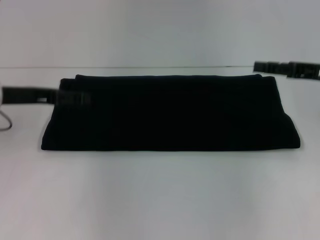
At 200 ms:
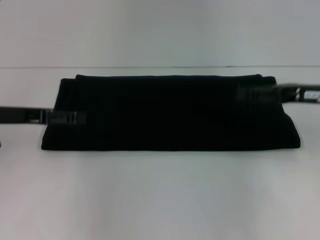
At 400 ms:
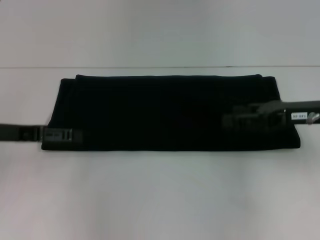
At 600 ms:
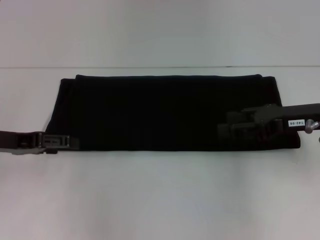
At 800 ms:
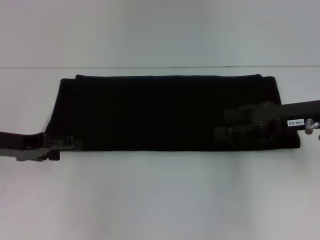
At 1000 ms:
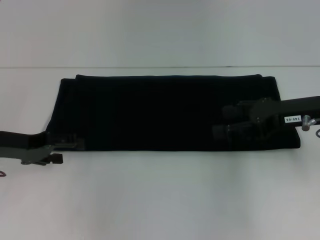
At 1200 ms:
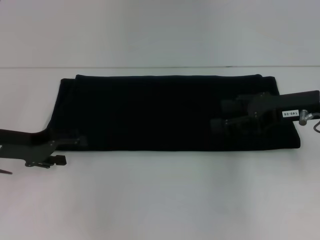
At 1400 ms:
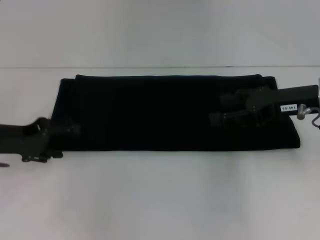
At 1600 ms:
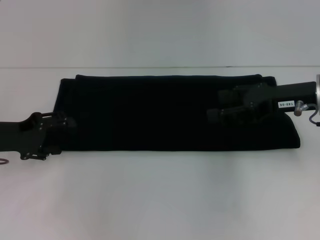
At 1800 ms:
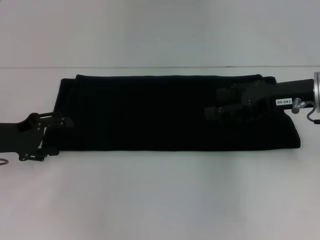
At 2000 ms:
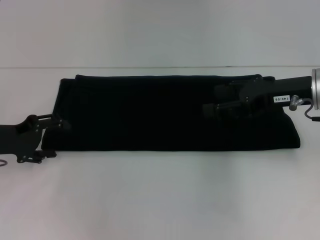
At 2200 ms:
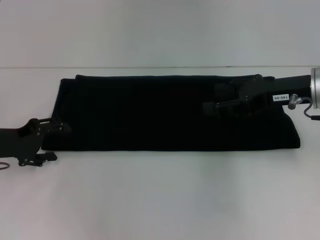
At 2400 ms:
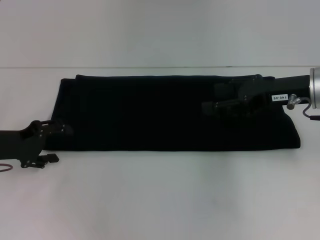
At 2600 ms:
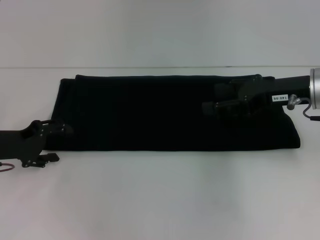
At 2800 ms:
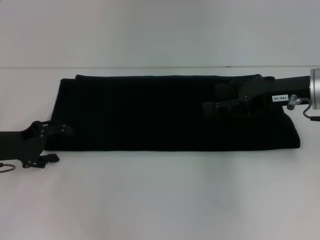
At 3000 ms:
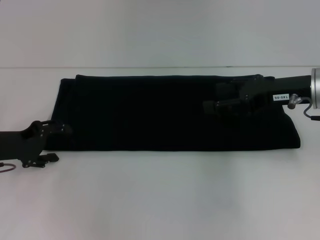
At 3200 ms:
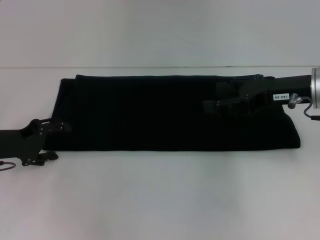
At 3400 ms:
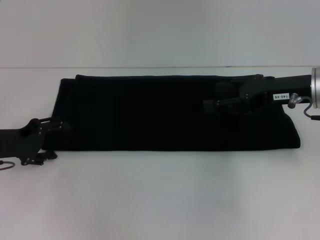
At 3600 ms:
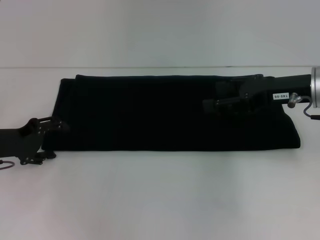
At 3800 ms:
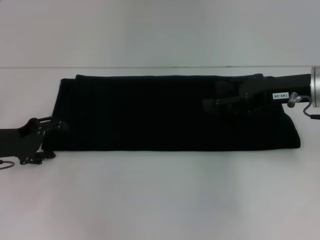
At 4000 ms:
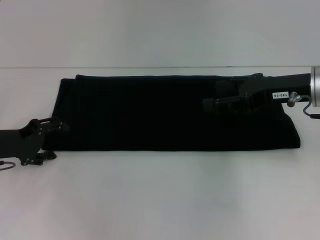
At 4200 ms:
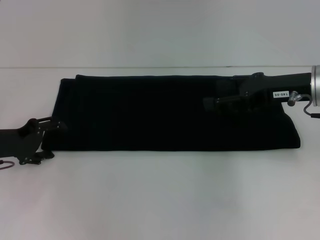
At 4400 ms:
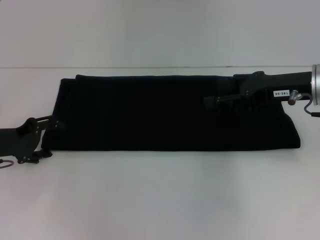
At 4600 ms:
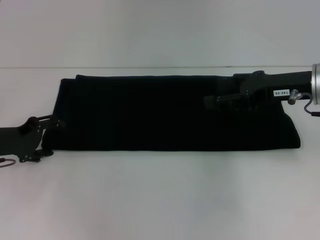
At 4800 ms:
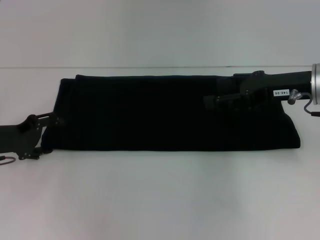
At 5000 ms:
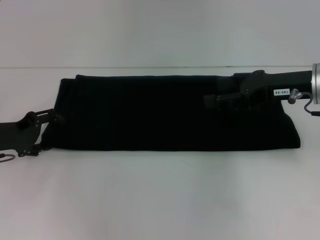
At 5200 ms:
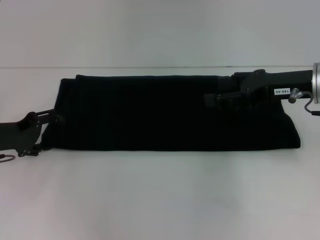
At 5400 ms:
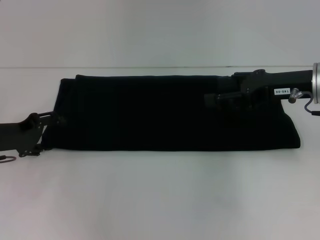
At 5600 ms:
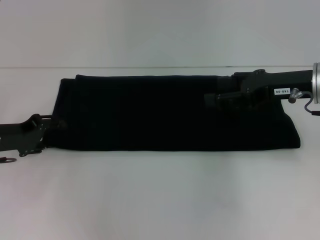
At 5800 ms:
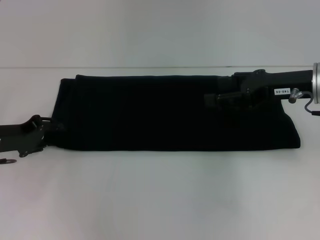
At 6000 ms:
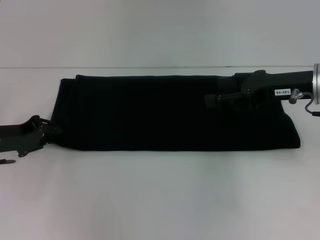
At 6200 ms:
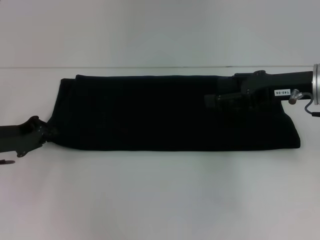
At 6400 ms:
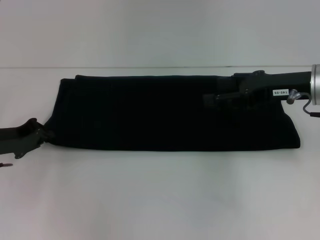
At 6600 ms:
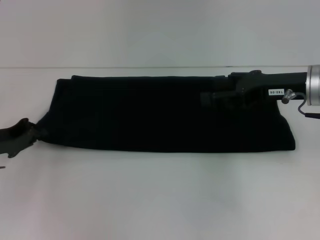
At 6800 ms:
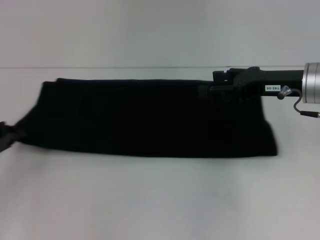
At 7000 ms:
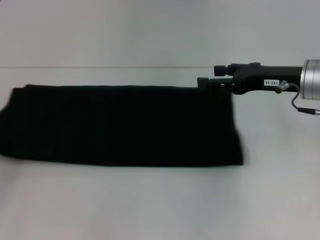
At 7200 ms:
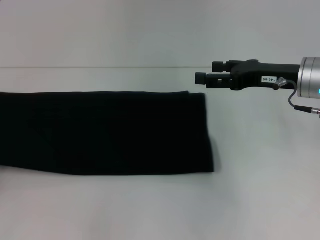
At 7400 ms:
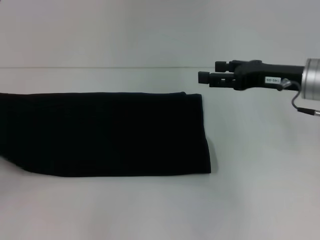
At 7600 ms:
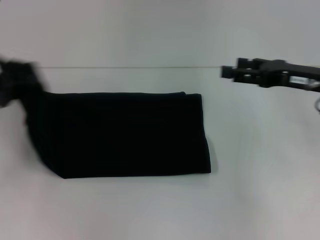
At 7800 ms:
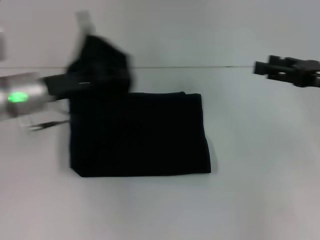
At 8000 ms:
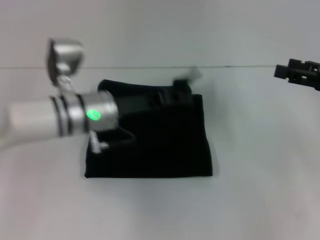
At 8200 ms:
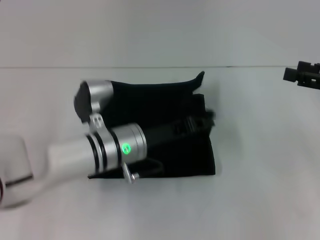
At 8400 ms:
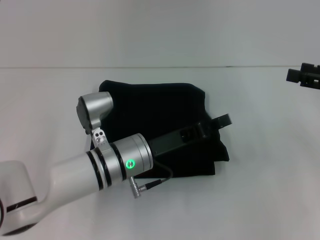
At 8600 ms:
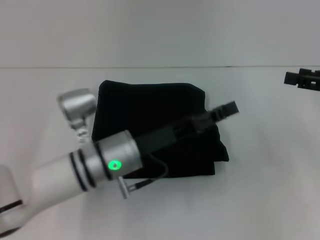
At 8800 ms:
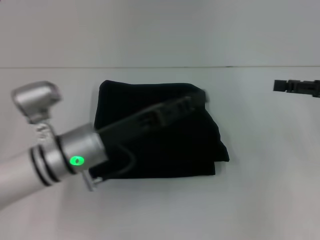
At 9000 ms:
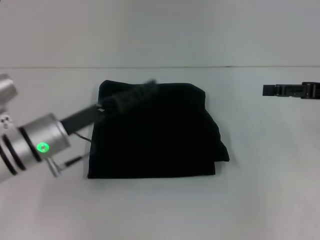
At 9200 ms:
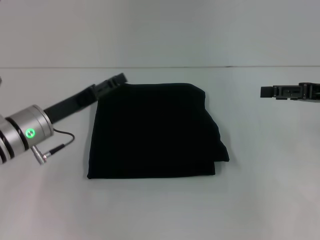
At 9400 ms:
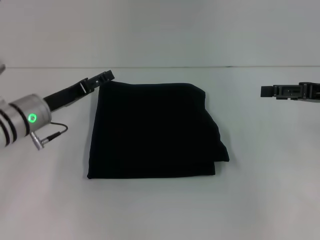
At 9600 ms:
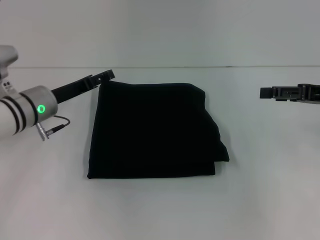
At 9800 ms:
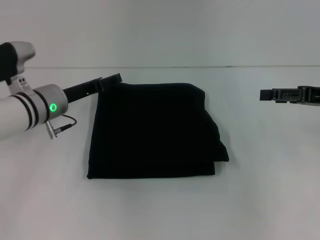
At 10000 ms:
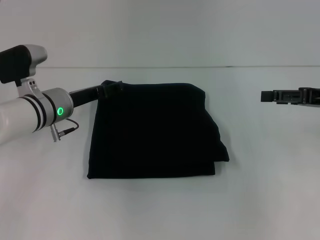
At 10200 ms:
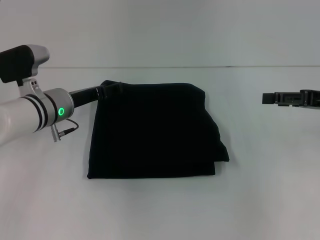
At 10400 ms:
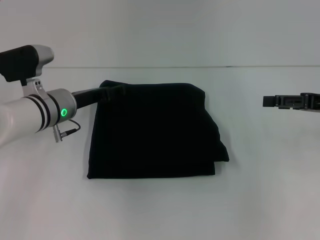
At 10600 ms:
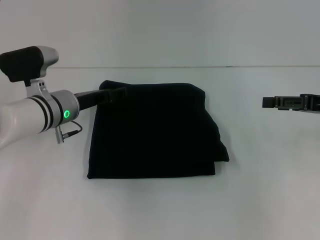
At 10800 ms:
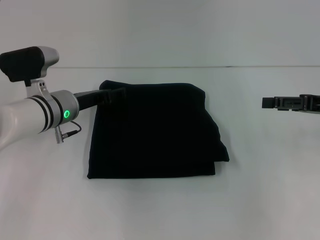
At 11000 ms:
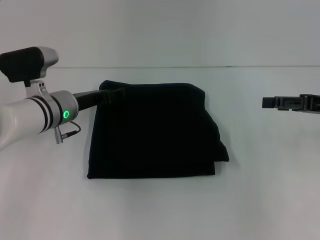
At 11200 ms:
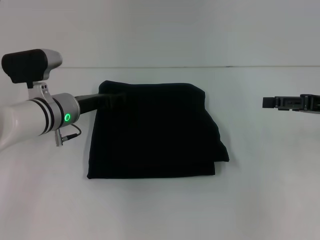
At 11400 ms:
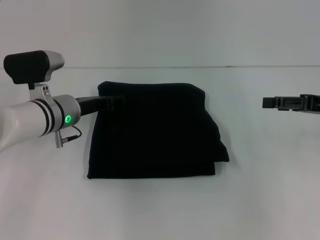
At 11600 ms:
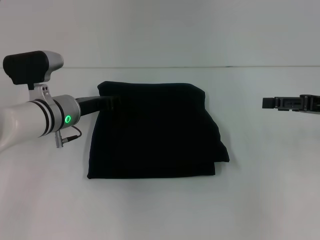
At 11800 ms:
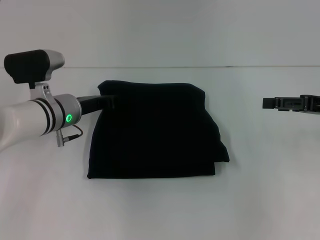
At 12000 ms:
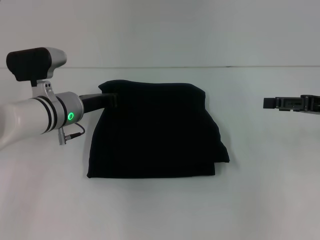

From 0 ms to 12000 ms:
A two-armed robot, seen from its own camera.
Step, from 0 ms to 8600 ms: Fold the clothes with your left hand.
From 0 ms to 1600 ms: The left gripper changes place by some 5 cm; the right gripper shifts approximately 5 cm to the left.
From 1600 ms to 3000 ms: The grippers make only small movements.
From 3000 ms to 4400 ms: Neither gripper changes place.
From 4400 ms to 6000 ms: The left gripper closes its fingers.
From 6000 ms to 7600 ms: The left gripper heads upward, covering approximately 5 cm, moves some 10 cm to the left and comes back, and closes up.
From 7600 ms to 9000 ms: The right gripper heads to the right, covering about 5 cm, while the left gripper travels to the right by approximately 15 cm, and opens.
From 9000 ms to 10400 ms: The left gripper is displaced forward by roughly 10 cm, and opens its fingers.
From 10400 ms to 12000 ms: The left gripper closes its fingers.

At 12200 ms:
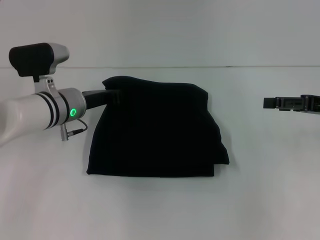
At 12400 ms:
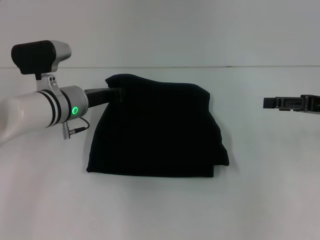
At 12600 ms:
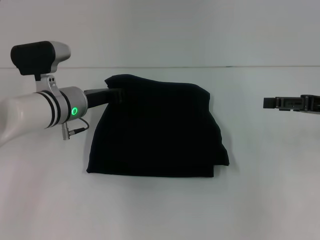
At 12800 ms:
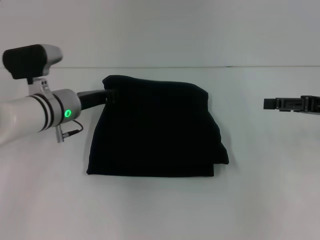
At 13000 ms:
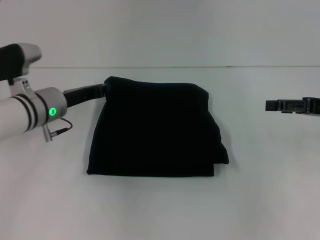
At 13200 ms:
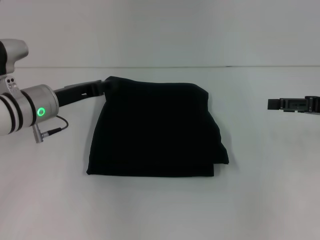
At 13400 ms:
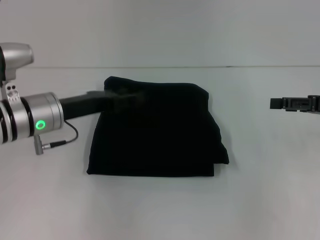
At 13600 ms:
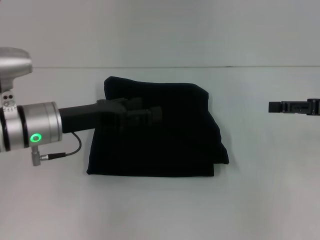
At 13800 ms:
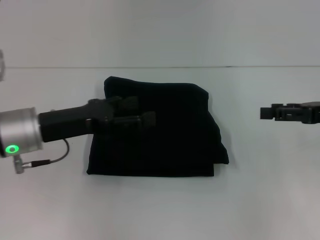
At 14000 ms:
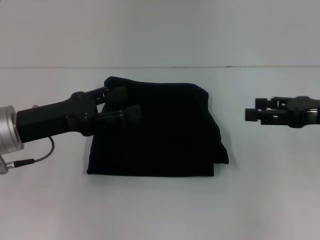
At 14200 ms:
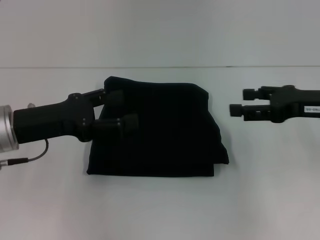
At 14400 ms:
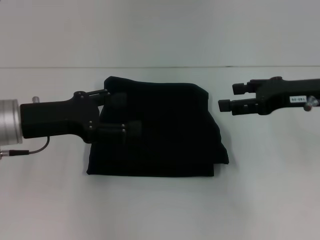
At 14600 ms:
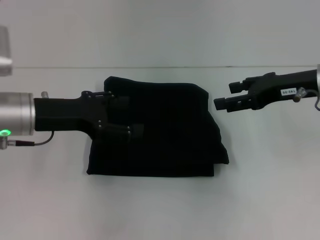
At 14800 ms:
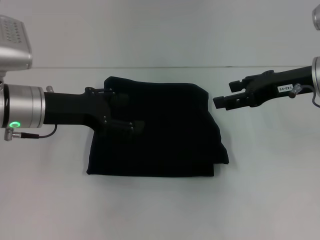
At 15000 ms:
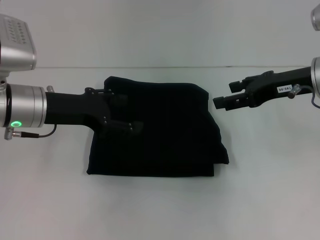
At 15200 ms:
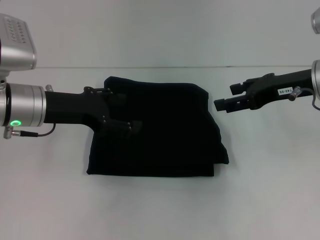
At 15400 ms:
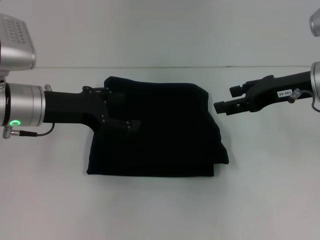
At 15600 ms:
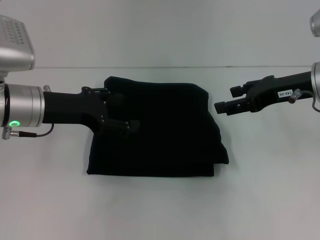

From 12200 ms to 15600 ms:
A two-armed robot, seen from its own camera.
From 12200 ms to 13800 ms: The left gripper travels backward and upward by about 10 cm, and opens up.
From 13800 ms to 15600 ms: The right gripper is displaced to the left by roughly 10 cm.
